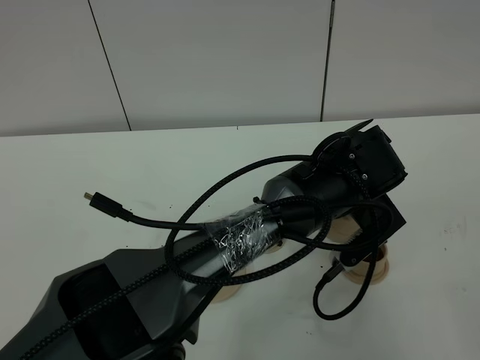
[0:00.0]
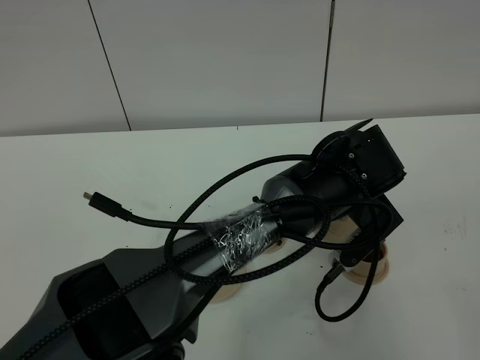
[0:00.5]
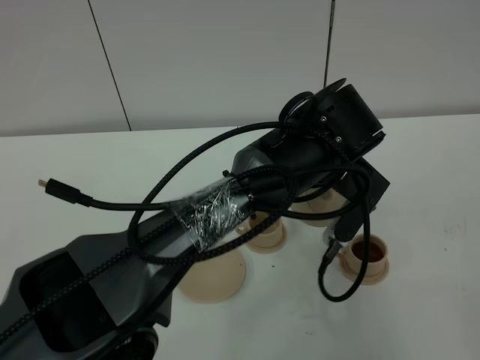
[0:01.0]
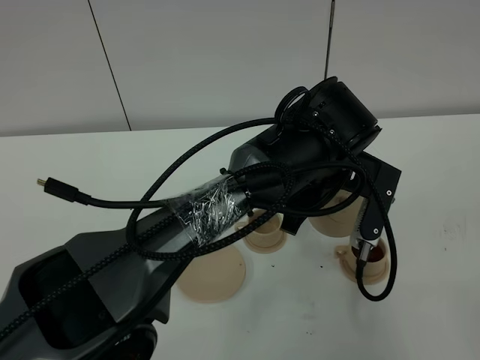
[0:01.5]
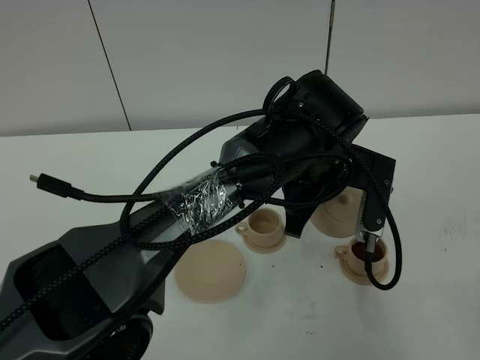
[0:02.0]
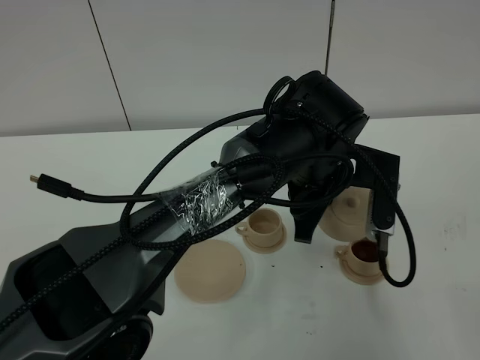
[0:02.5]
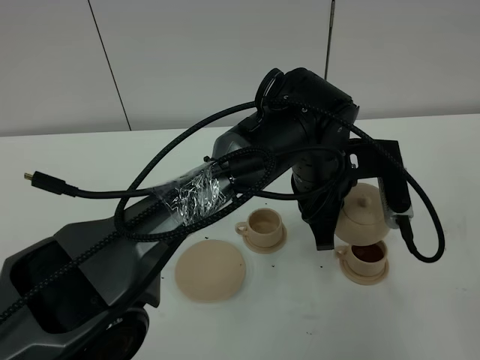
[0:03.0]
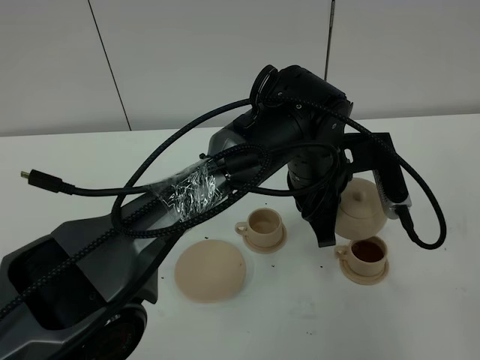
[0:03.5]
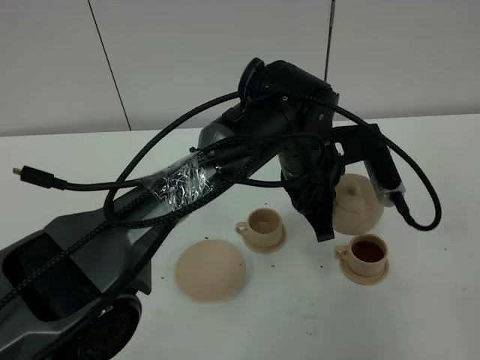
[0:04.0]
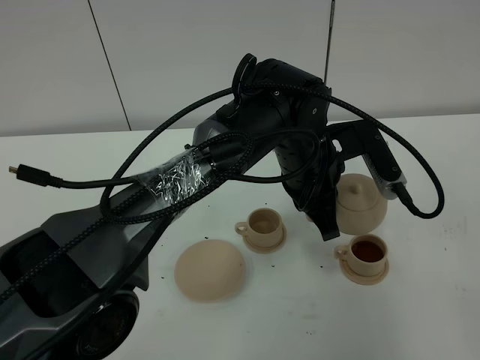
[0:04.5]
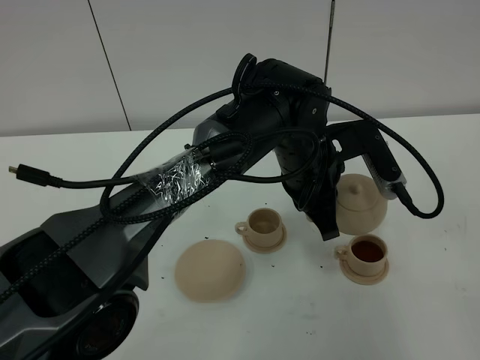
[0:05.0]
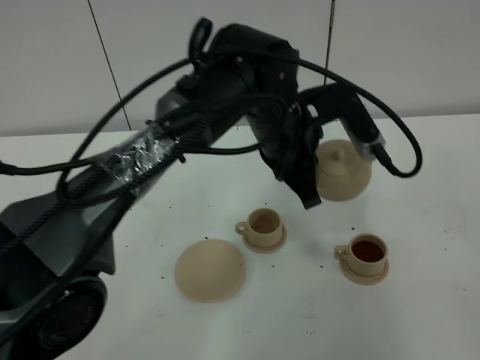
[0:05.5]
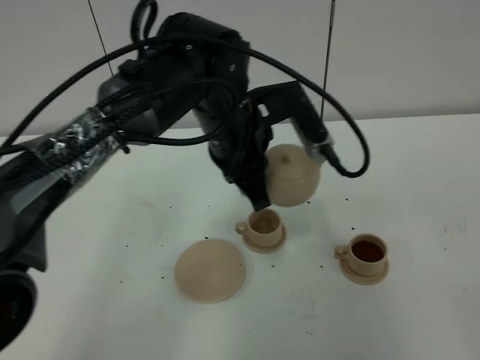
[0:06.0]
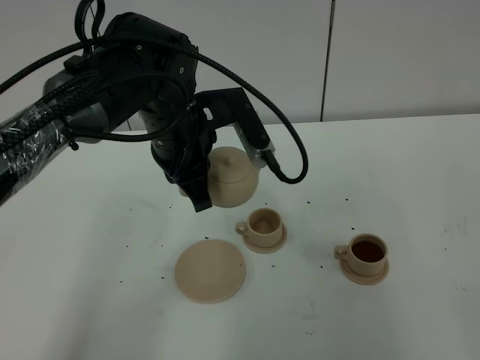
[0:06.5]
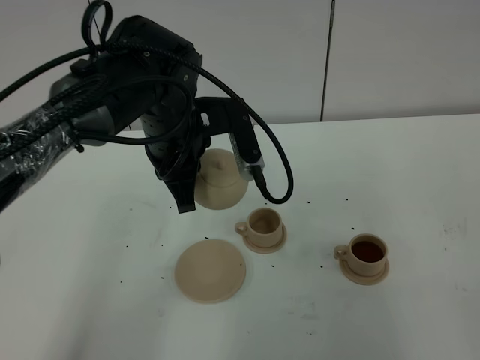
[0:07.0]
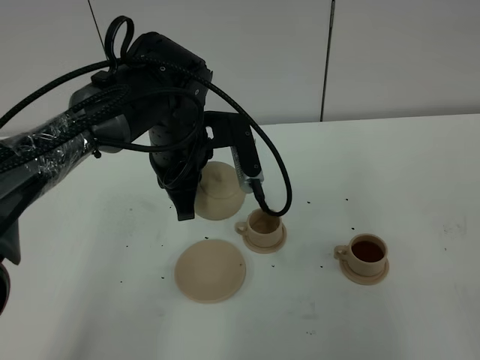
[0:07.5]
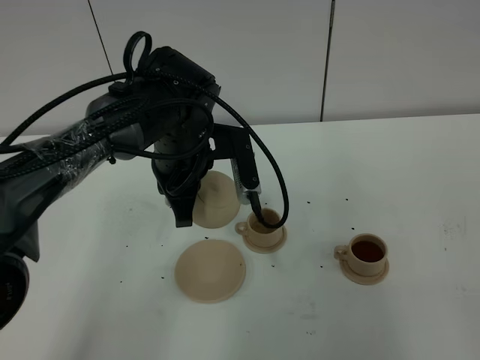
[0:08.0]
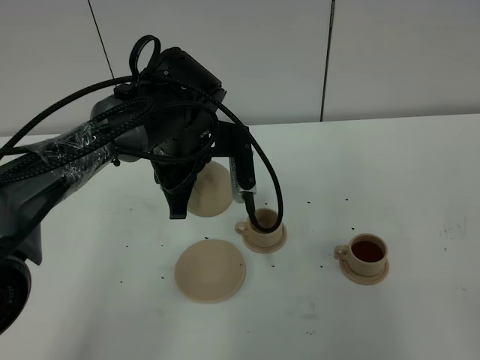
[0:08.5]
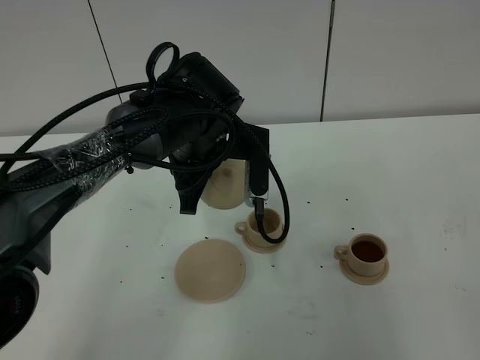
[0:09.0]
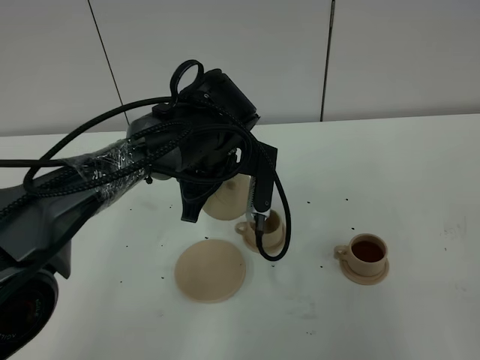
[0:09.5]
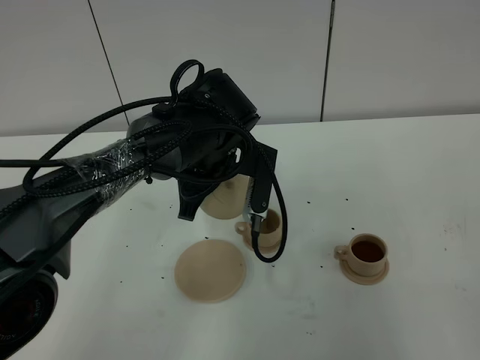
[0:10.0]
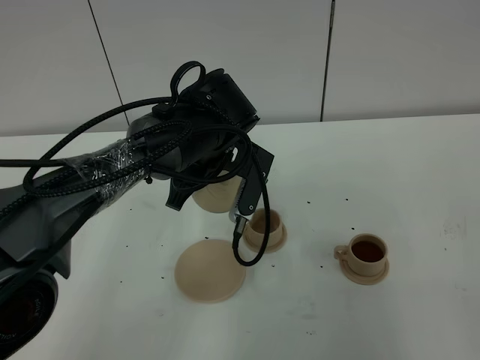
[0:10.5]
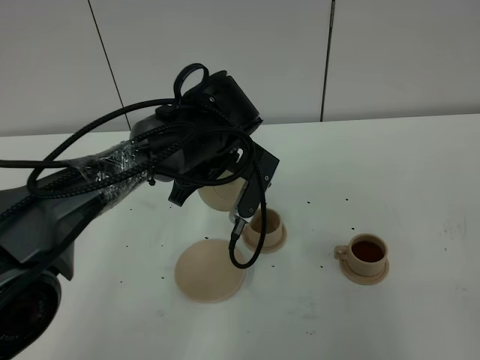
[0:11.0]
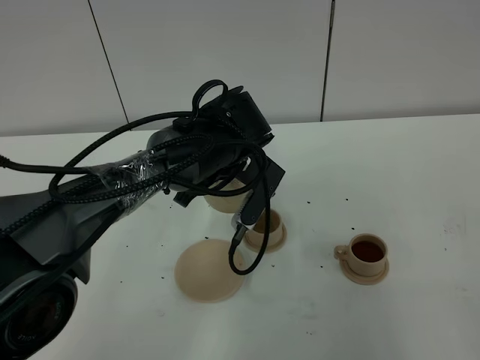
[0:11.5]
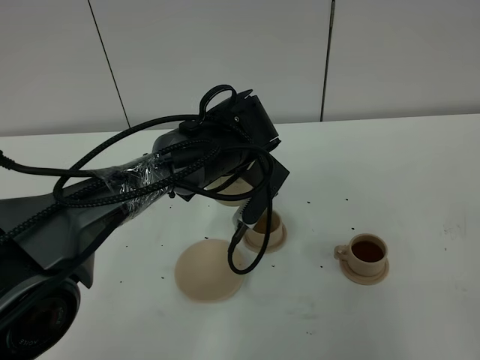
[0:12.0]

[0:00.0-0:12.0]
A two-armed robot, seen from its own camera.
Task of the whole recording: grasp the brown teapot and pour the tea into the two brown teacups one by one, put the brown teapot back in its original place.
0:04.0 to 0:06.0: The left gripper travels to the left by about 10 cm.
0:06.0 to 0:08.0: The left gripper heads to the left, covering approximately 5 cm.

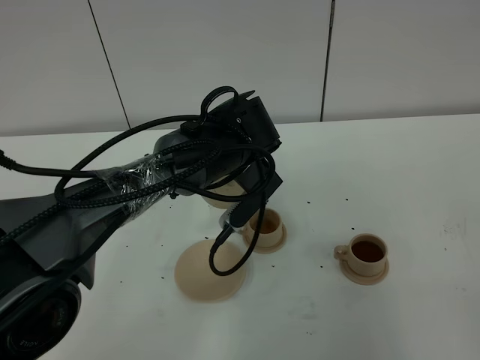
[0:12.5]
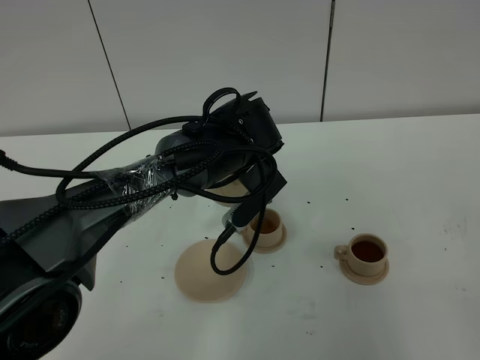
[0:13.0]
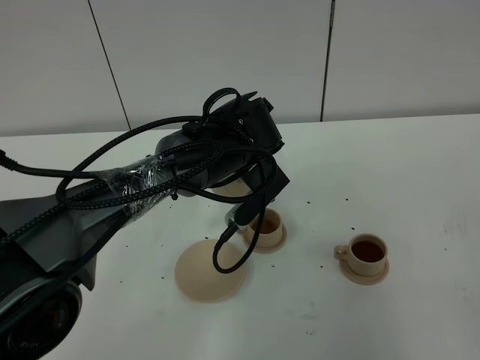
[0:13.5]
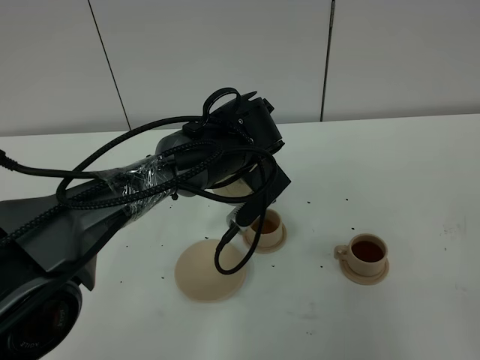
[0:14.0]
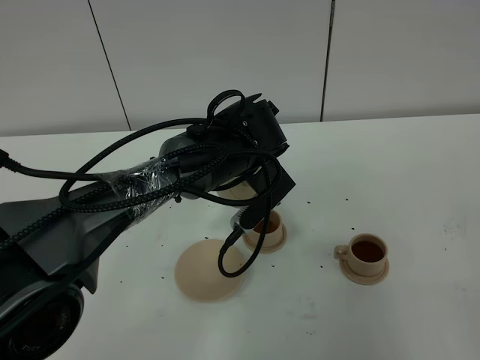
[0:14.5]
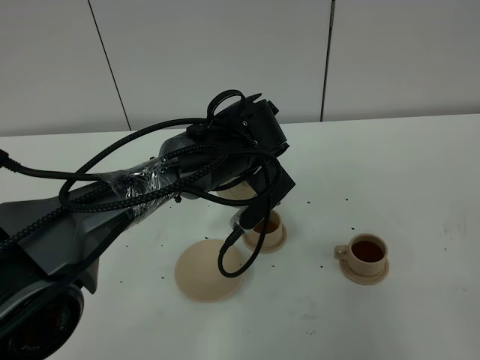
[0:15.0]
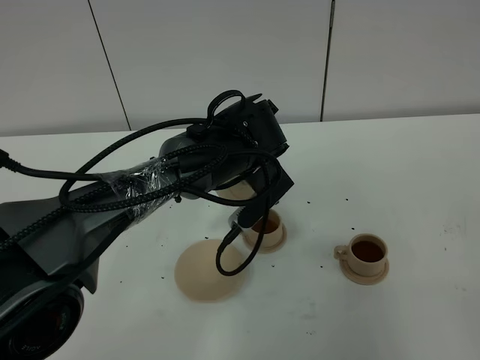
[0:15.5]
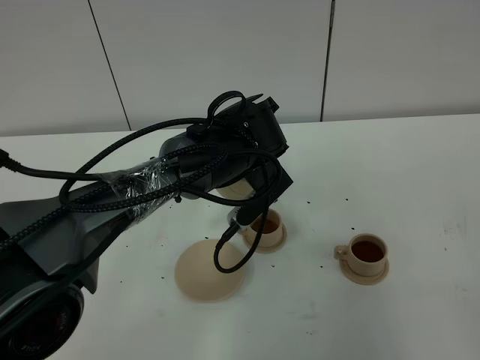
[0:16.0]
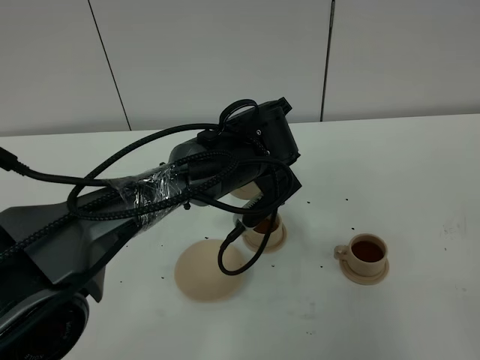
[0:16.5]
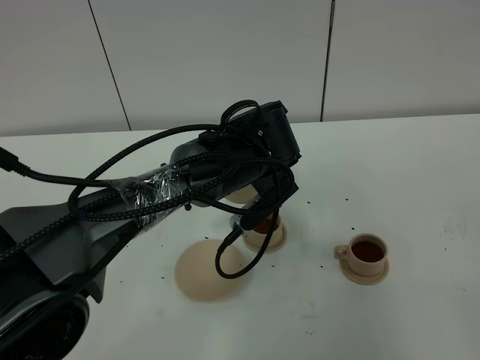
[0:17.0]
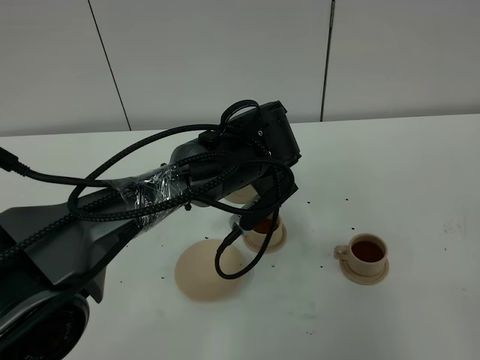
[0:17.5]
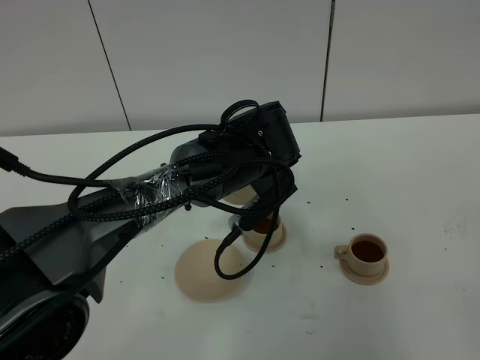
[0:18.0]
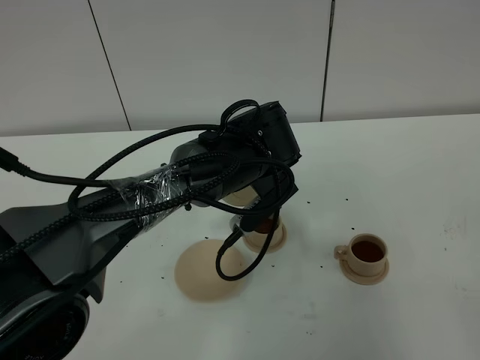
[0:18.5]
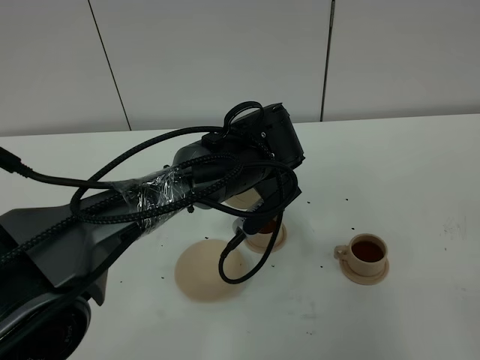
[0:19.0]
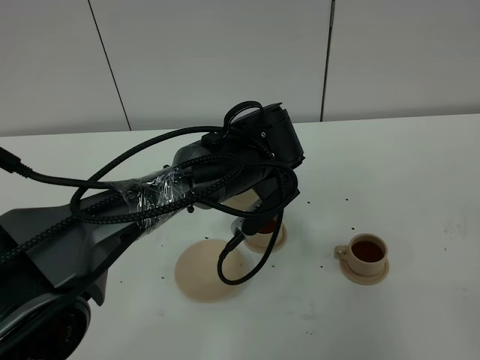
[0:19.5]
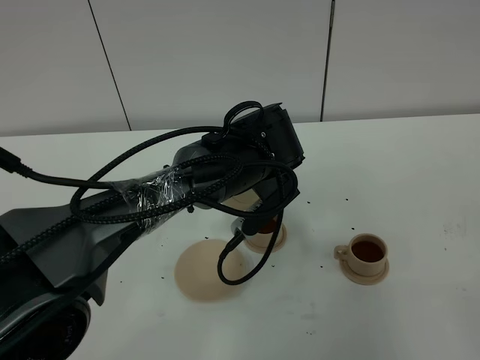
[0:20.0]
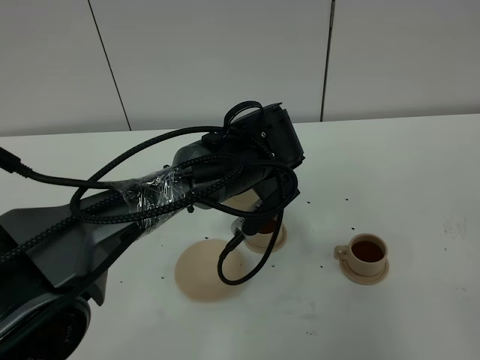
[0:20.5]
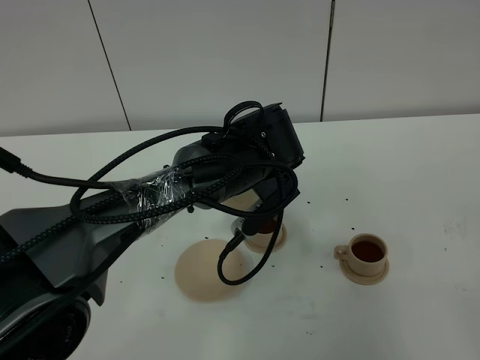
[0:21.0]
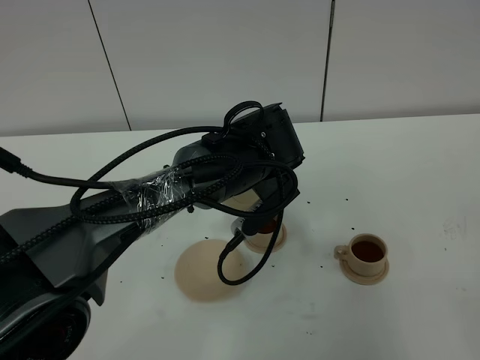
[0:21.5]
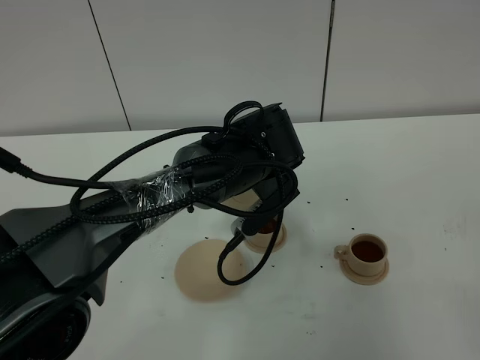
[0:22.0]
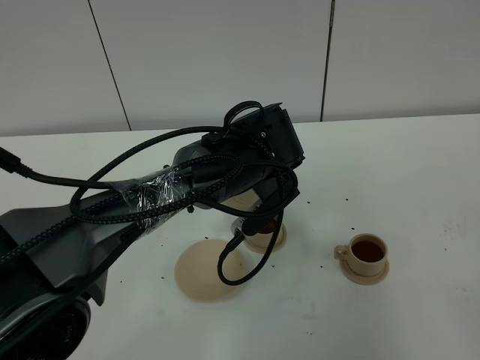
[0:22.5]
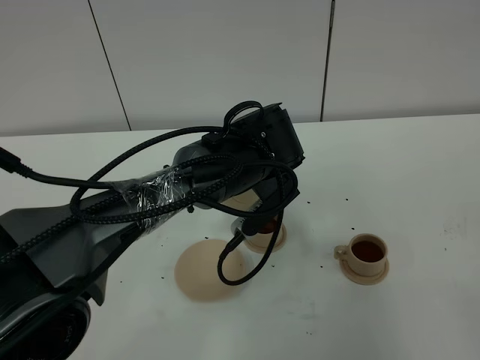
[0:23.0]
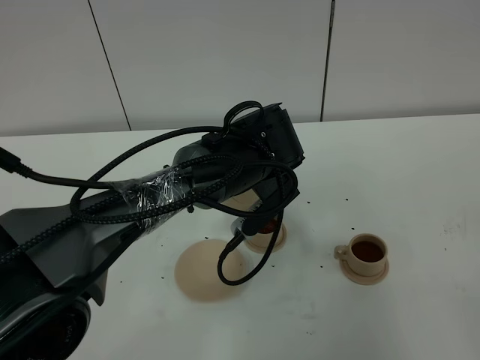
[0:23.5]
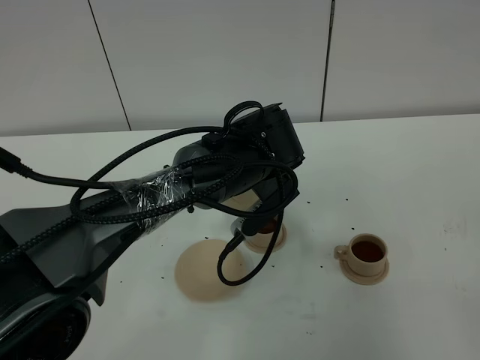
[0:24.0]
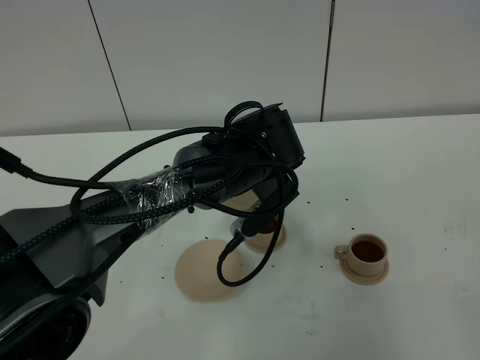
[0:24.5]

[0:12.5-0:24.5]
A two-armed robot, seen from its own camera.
Task of the whole recording: grasp the brown teapot and pour the tea into the two brown teacups one by one, put the brown teapot back in its original place.
0:12.5 to 0:14.5: Both grippers stay put.
0:14.5 to 0:16.5: The grippers move only a little.
0:16.5 to 0:22.5: Both grippers stay about where they are.
0:22.5 to 0:24.5: Neither gripper changes place.

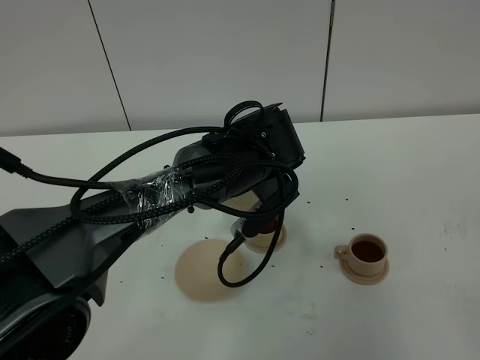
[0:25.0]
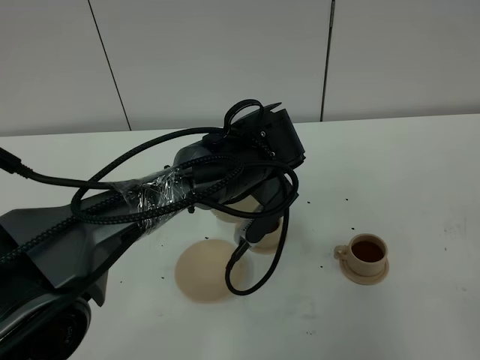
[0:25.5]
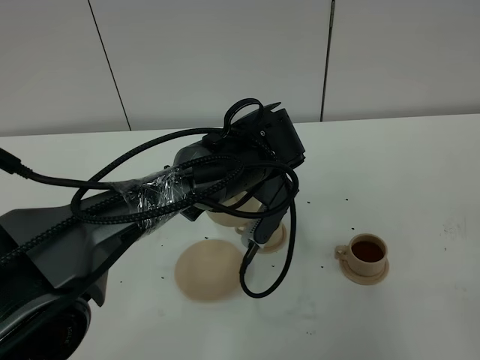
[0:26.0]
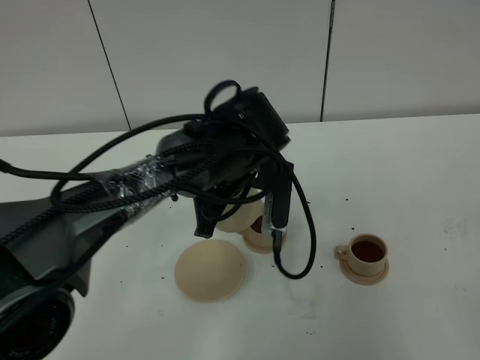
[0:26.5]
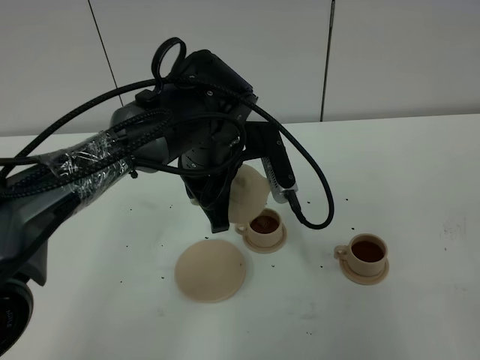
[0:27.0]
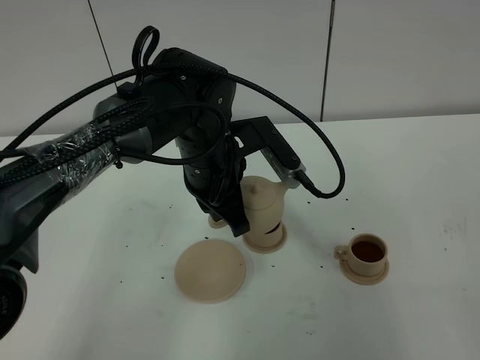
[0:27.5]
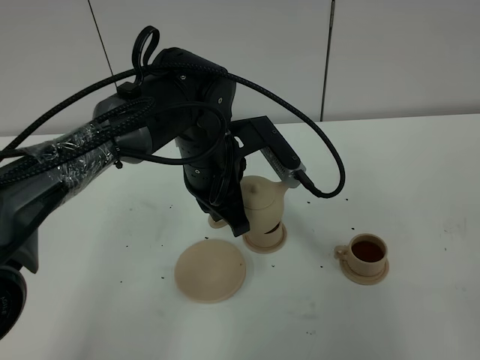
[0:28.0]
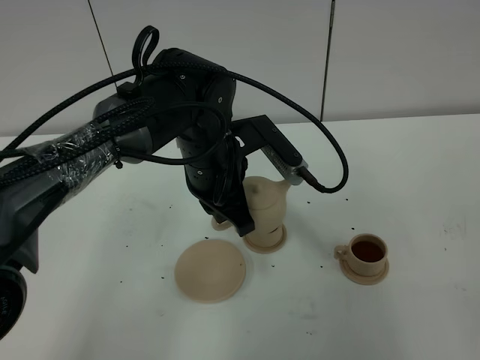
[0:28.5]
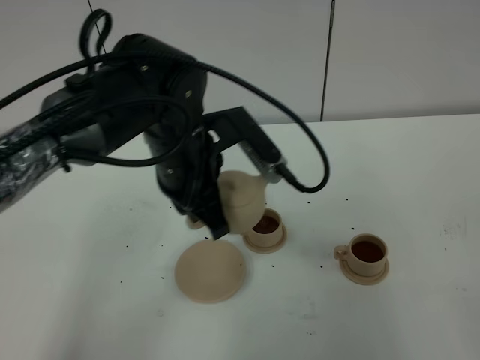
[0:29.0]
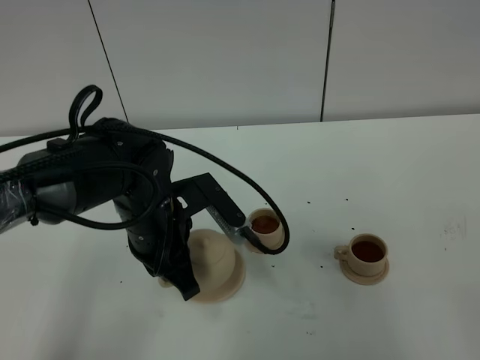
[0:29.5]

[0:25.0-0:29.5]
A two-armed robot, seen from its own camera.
Task of the whole recording: grasp the brown teapot and pour the tea into the two brown teacups one by one, put the brown teapot back in its original place.
0:25.0 to 0:27.0: The left gripper moves about 5 cm.
0:27.0 to 0:29.5: The left gripper travels to the left and backward by some 10 cm.
